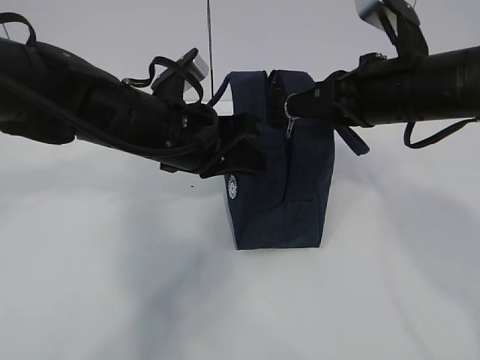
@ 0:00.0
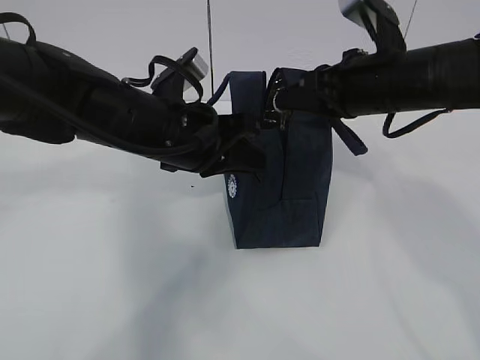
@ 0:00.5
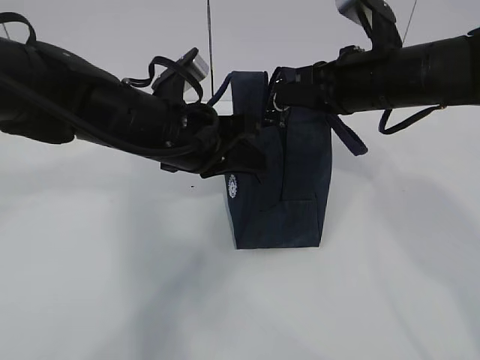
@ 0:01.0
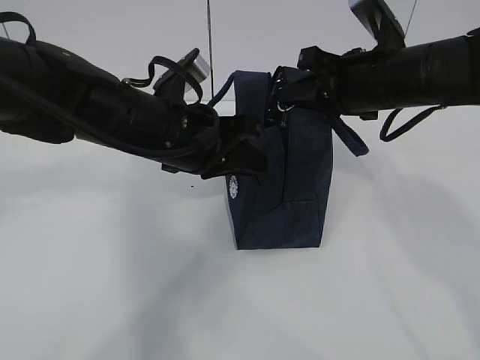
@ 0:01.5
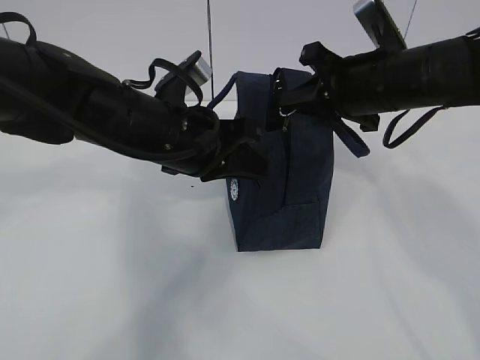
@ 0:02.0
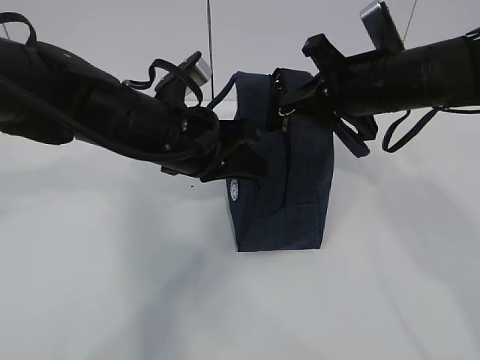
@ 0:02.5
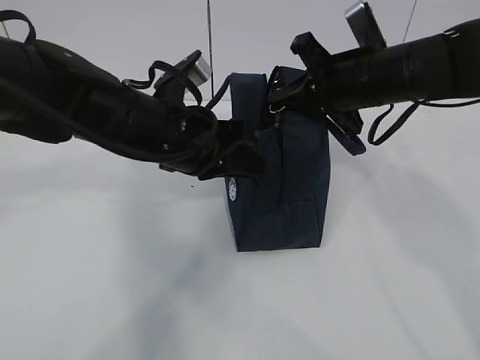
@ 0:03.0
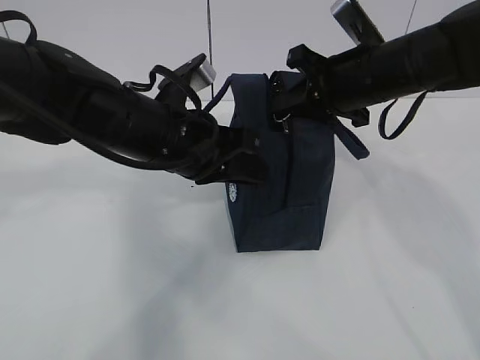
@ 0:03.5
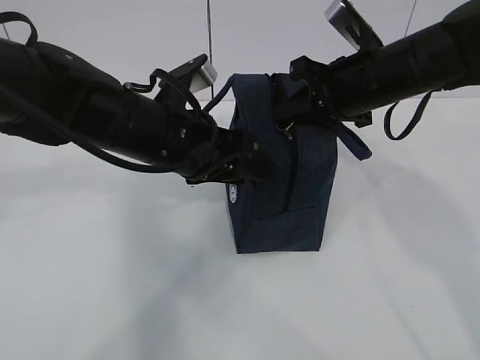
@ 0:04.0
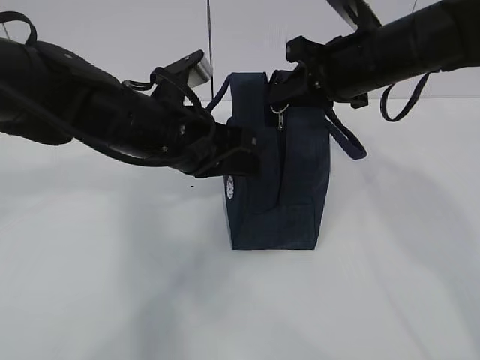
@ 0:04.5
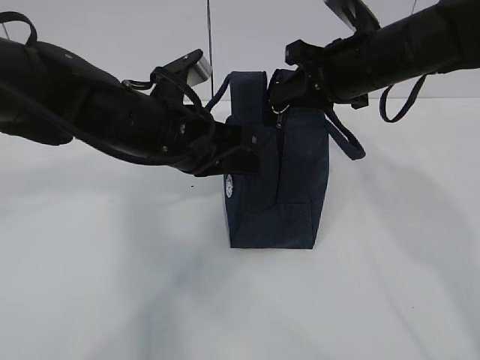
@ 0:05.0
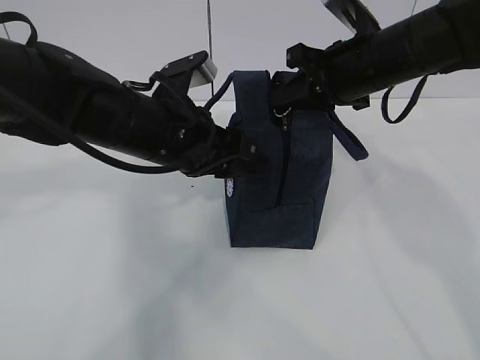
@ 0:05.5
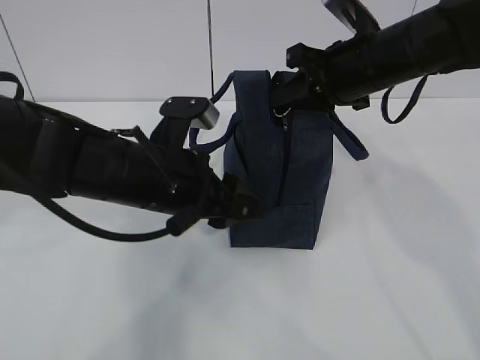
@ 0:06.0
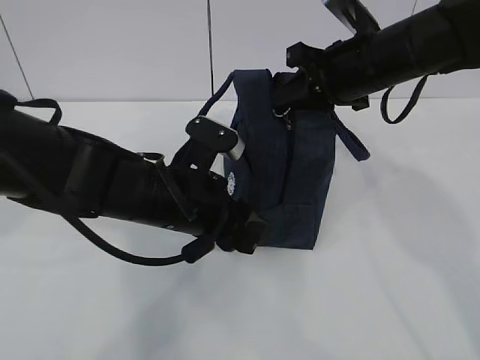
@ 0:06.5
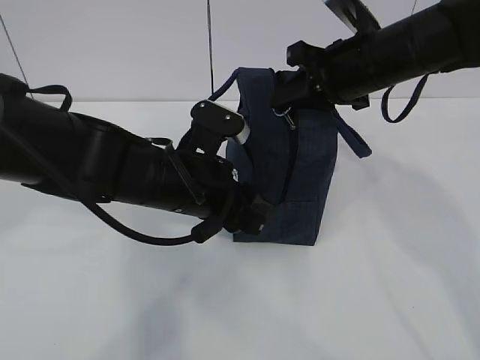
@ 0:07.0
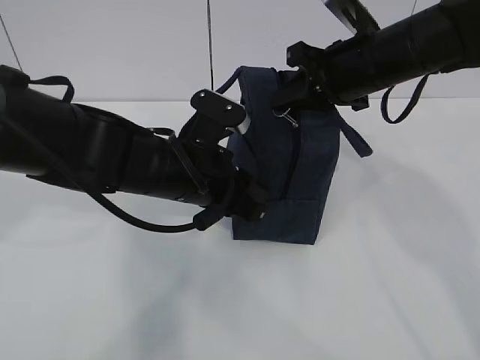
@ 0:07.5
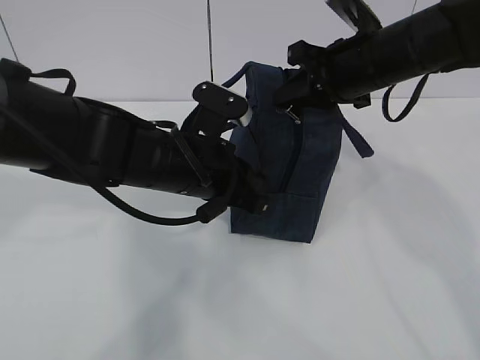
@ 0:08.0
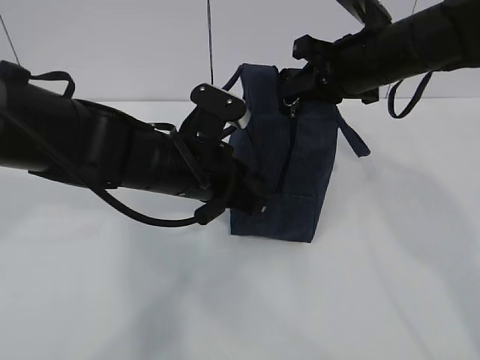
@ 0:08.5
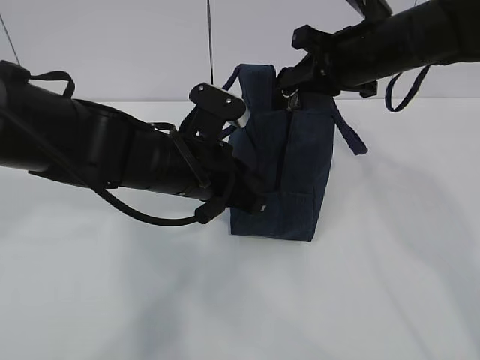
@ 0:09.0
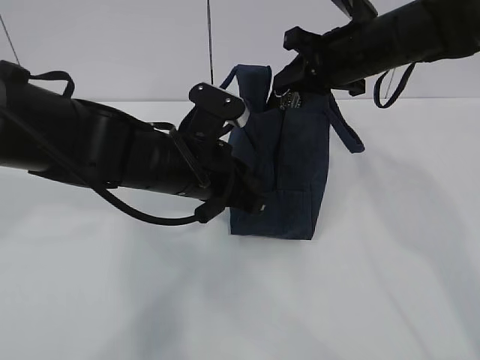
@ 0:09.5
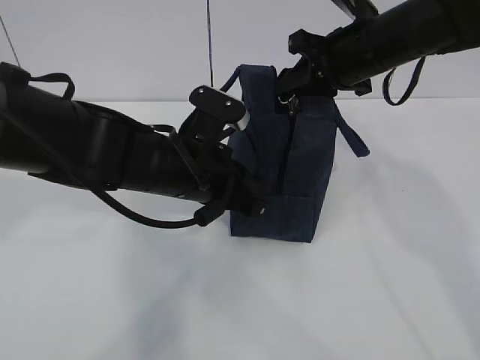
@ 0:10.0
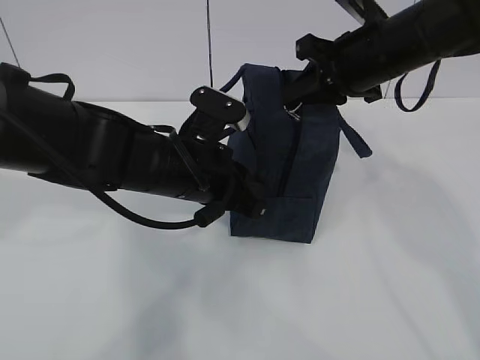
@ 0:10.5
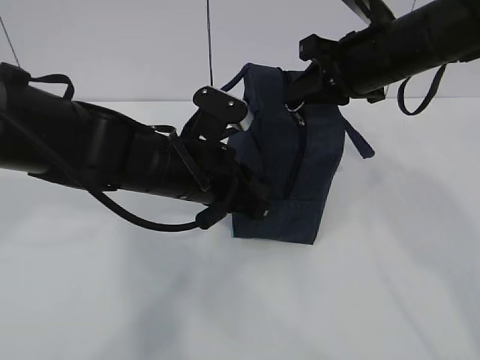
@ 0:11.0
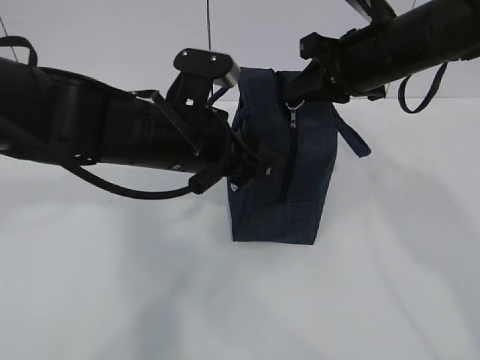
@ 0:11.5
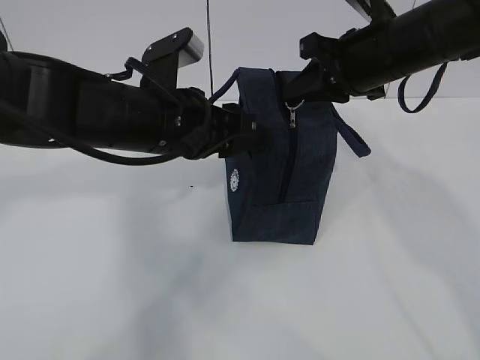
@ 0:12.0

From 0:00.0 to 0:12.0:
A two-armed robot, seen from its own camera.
Step, from 0:00.0 to 0:02.0: Pull the zipper with your right hand.
From 0:02.0 to 0:04.0: The left gripper opens.
From 0:04.0 to 0:06.0: The left gripper closes, then opens again.
From 0:06.0 to 0:08.0: The left gripper closes up.
From 0:08.0 to 0:10.0: The grippers make only small movements.
From 0:10.0 to 0:12.0: The left gripper travels upward by about 5 cm, and opens.

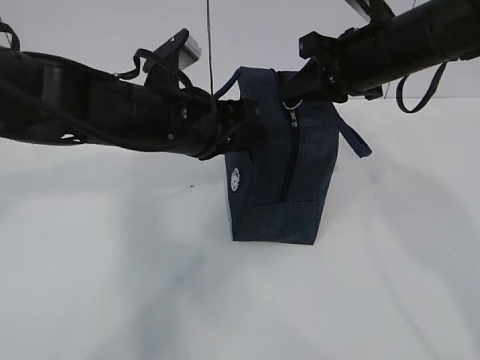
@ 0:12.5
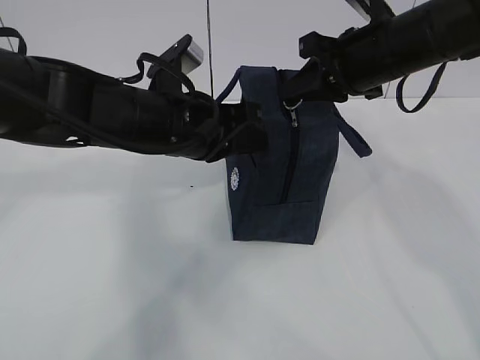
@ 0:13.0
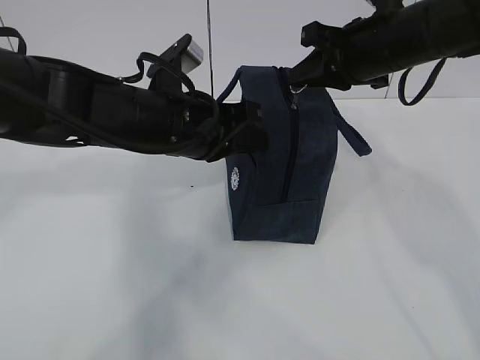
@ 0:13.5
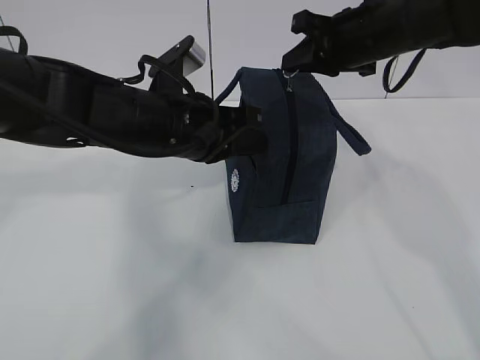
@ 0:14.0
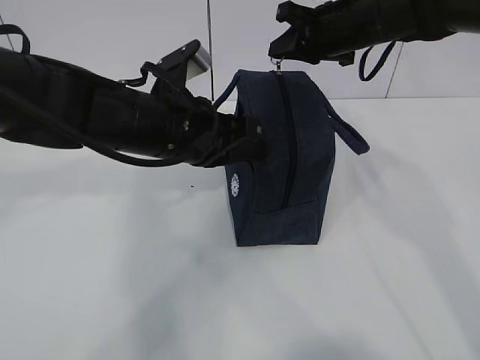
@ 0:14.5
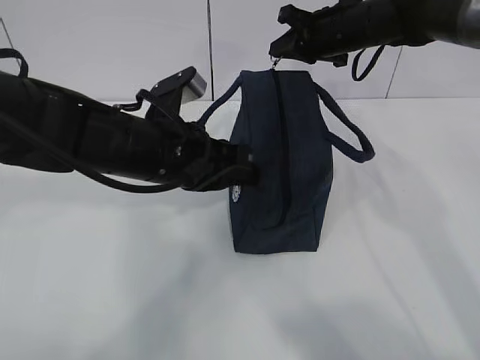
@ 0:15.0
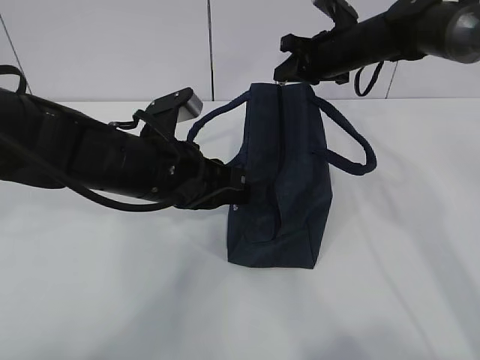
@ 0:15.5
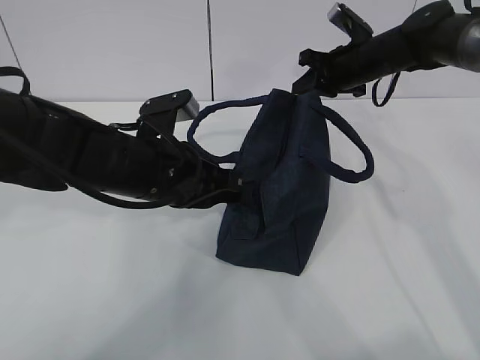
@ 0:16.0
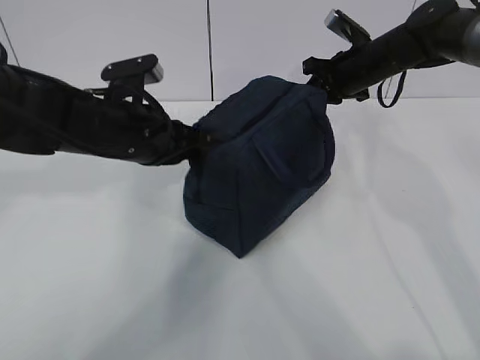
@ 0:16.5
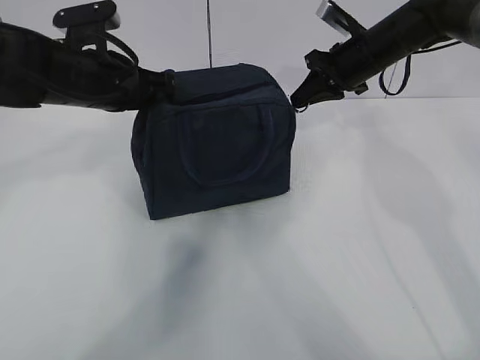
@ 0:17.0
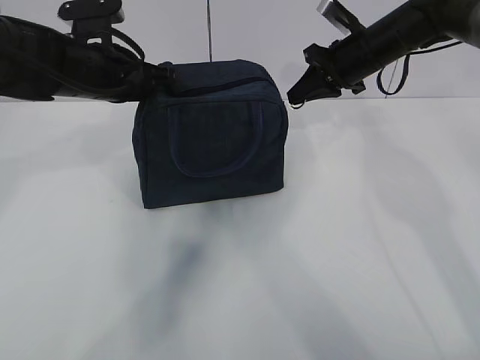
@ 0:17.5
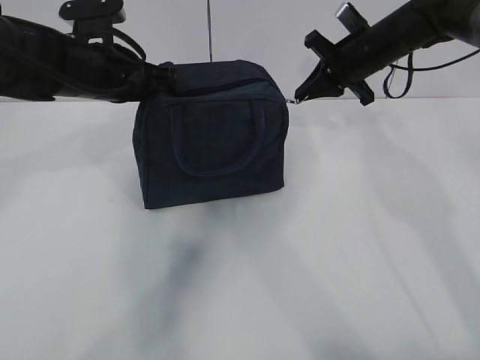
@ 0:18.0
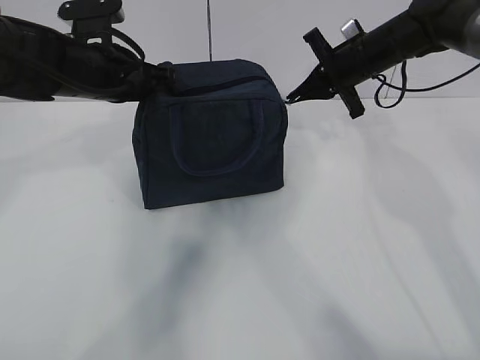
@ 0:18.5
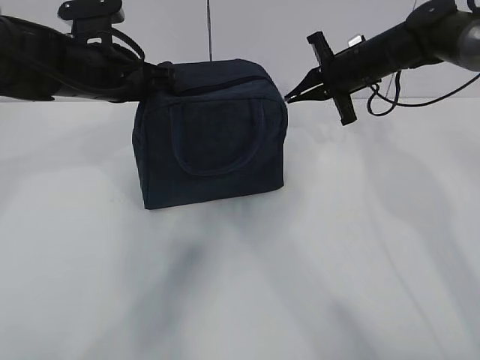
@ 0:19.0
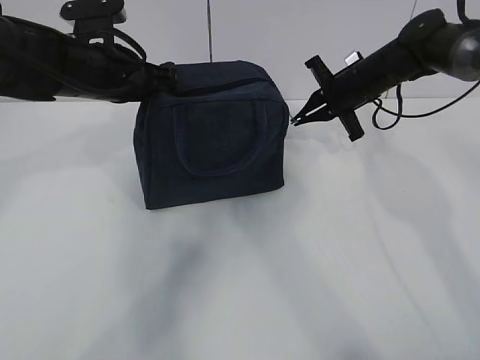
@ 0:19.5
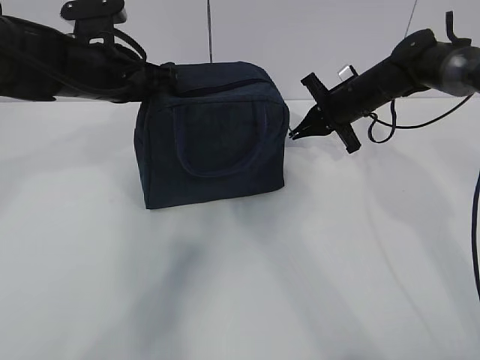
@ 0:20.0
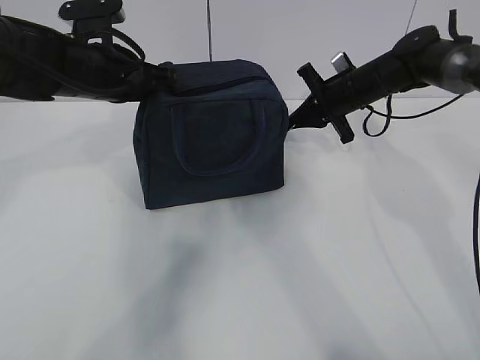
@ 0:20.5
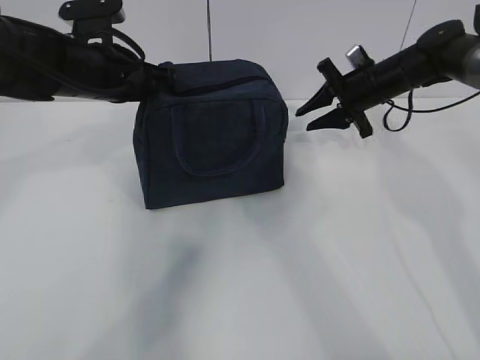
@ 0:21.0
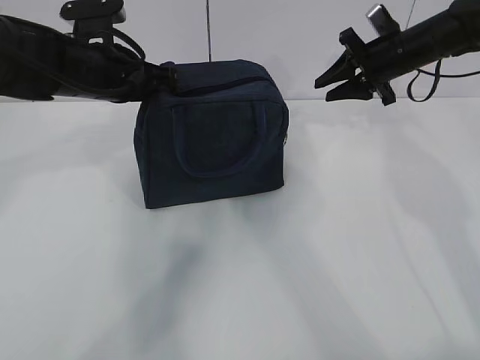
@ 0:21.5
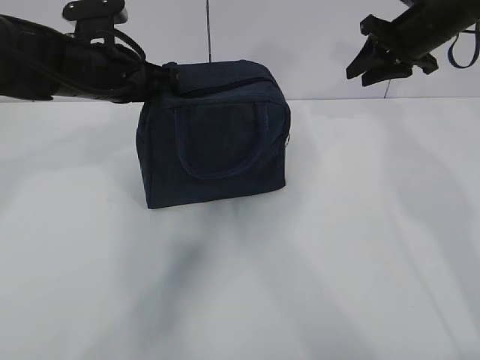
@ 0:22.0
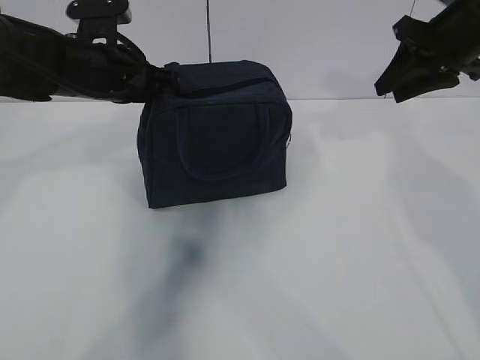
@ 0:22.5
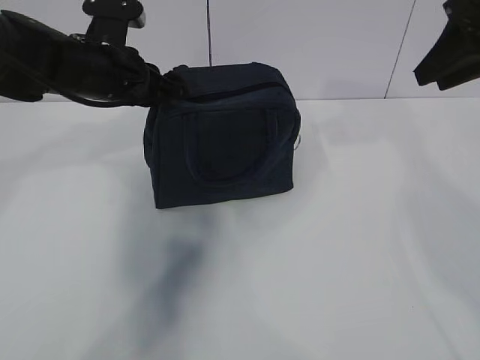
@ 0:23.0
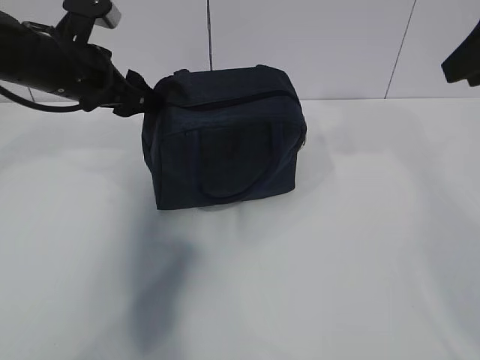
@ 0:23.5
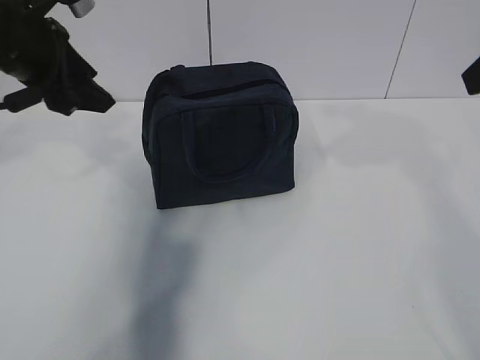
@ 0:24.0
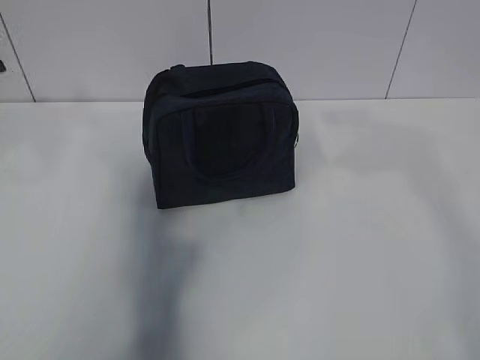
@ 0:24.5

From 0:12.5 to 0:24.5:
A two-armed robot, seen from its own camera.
From 0:12.5 to 0:14.5: The right gripper is displaced forward by about 10 cm; the left gripper closes its fingers.
From 0:14.5 to 0:16.5: The right gripper moves downward, some 5 cm. The left gripper travels to the left by about 5 cm.
From 0:16.5 to 0:18.5: The left gripper moves forward, some 5 cm.
From 0:18.5 to 0:20.5: The right gripper goes roughly 5 cm downward.
From 0:20.5 to 0:22.5: The right gripper is displaced upward, backward and to the right by some 20 cm, and opens its fingers.
From 0:22.5 to 0:24.5: The left gripper goes about 20 cm upward, to the left and backward, and opens its fingers, while the right gripper travels backward and upward by roughly 20 cm.

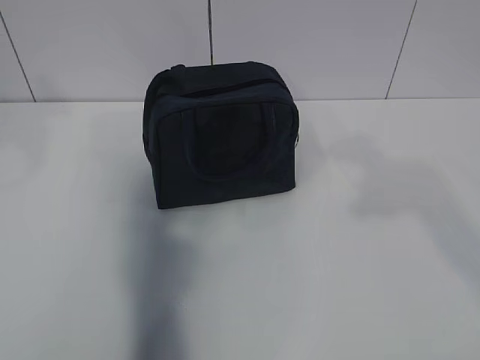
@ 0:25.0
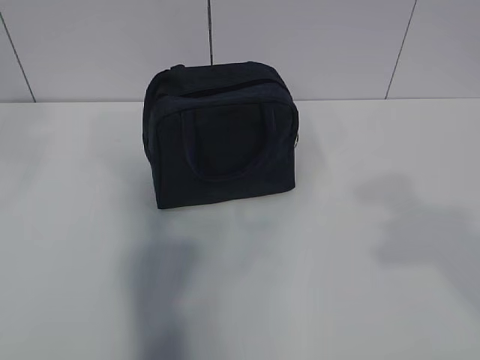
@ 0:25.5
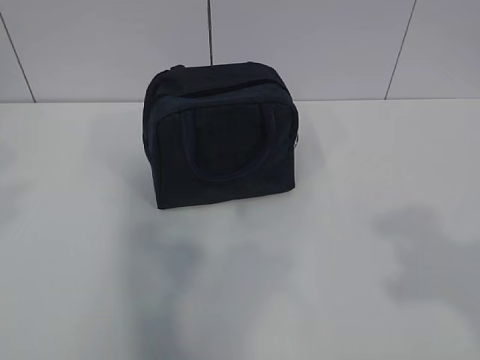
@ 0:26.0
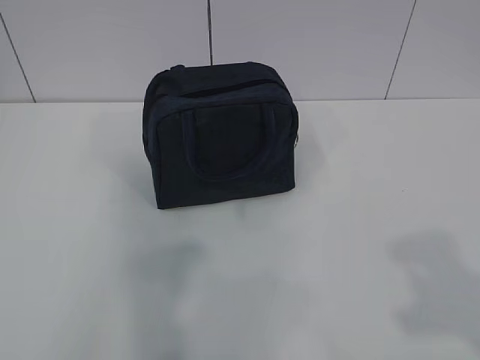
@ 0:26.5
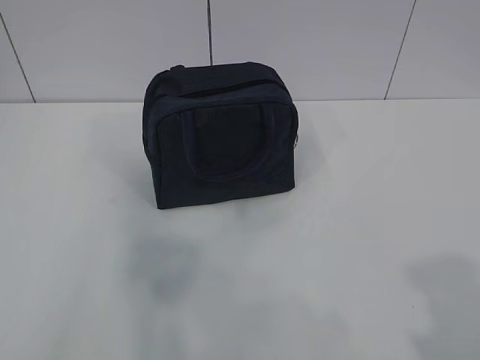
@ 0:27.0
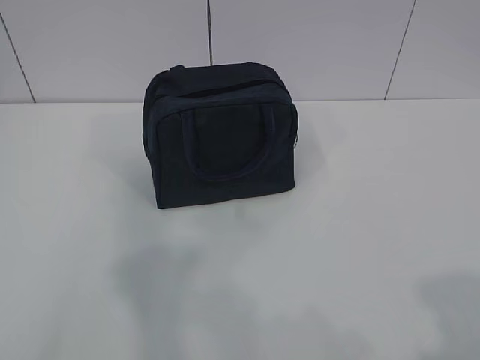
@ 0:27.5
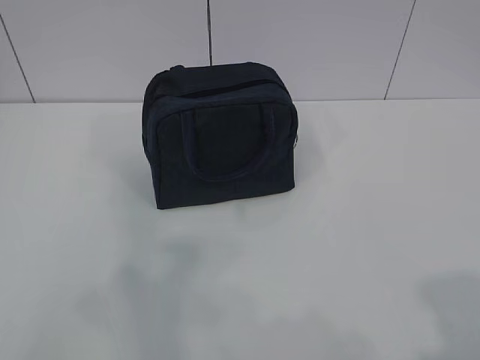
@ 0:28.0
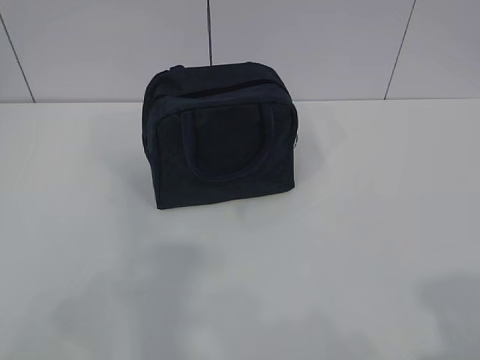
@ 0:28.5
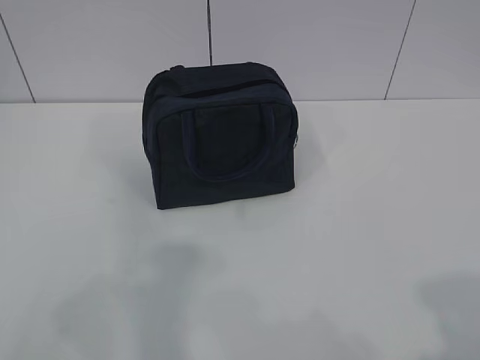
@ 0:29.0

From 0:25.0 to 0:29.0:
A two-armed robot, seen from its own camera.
From 0:25.0 to 0:27.0: The left gripper travels backward by about 25 cm, while the right gripper goes approximately 20 cm backward and downward.
